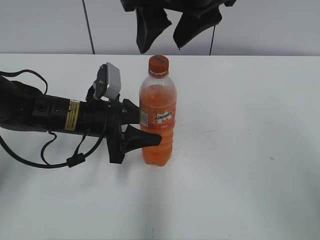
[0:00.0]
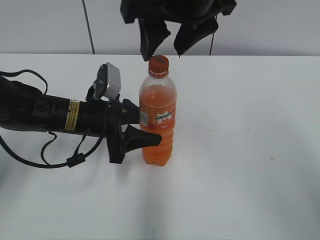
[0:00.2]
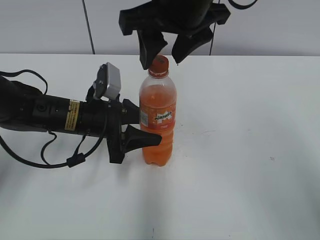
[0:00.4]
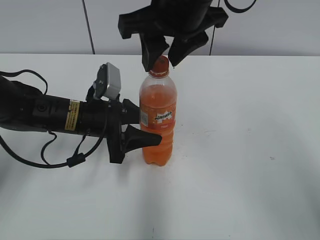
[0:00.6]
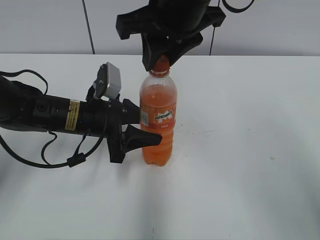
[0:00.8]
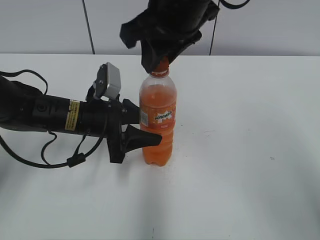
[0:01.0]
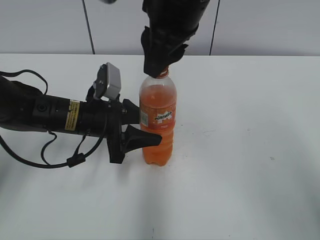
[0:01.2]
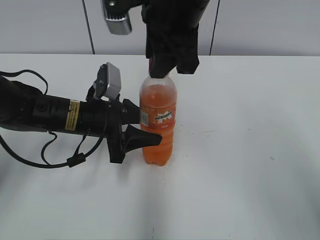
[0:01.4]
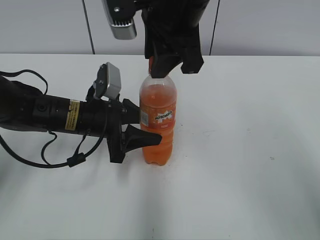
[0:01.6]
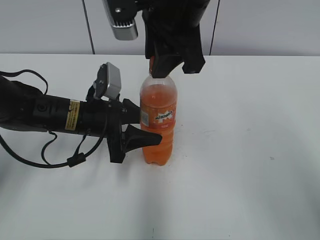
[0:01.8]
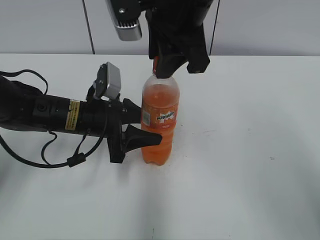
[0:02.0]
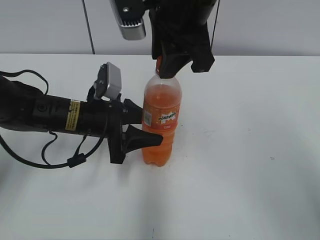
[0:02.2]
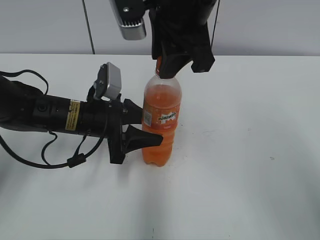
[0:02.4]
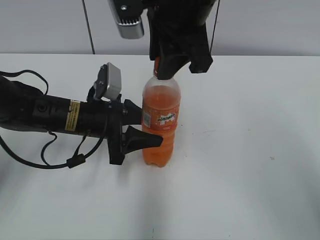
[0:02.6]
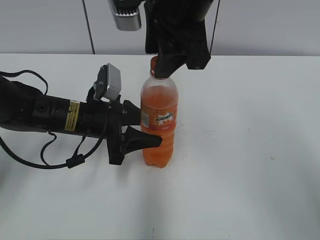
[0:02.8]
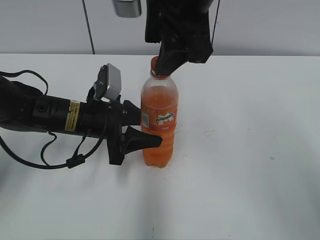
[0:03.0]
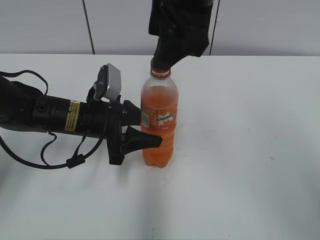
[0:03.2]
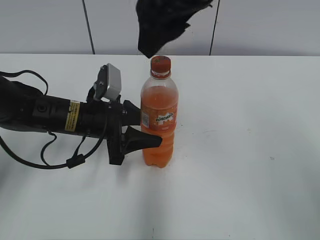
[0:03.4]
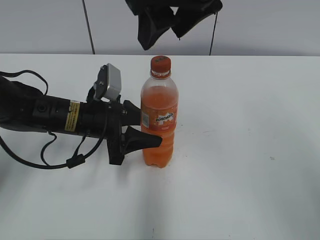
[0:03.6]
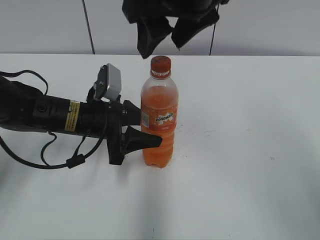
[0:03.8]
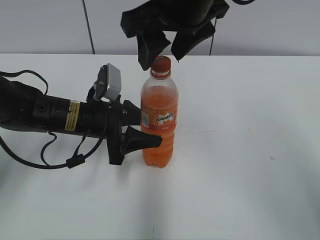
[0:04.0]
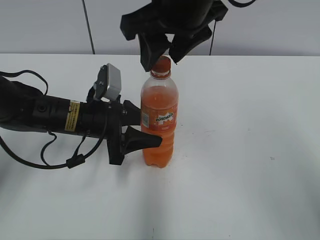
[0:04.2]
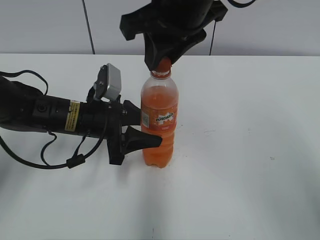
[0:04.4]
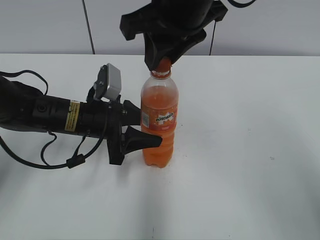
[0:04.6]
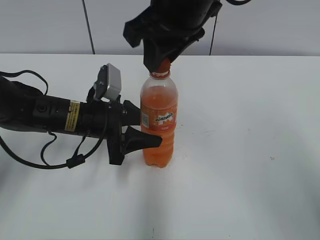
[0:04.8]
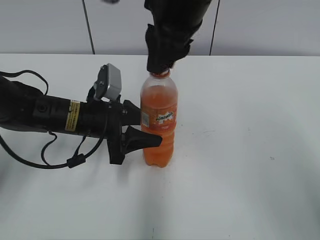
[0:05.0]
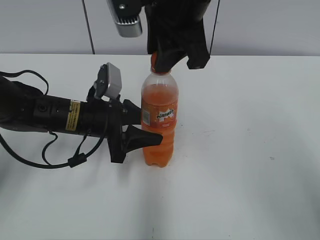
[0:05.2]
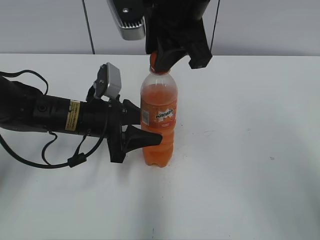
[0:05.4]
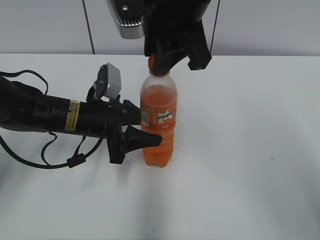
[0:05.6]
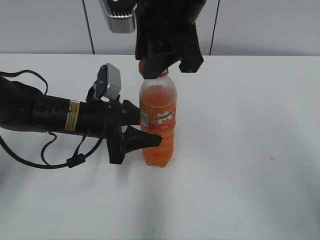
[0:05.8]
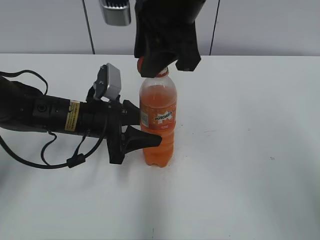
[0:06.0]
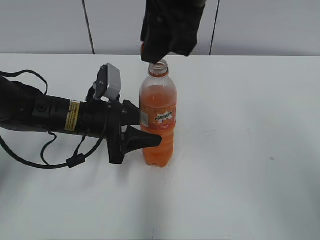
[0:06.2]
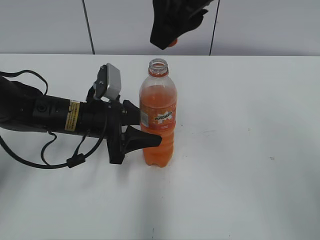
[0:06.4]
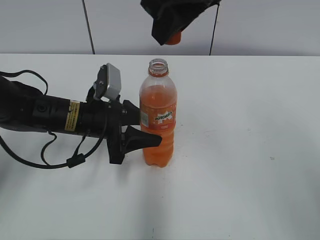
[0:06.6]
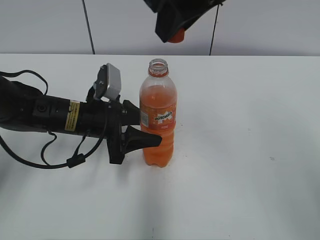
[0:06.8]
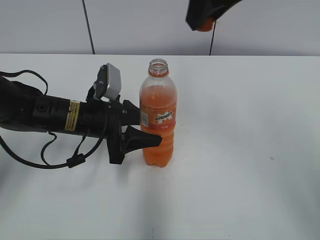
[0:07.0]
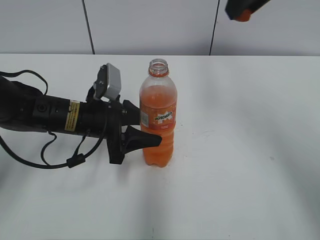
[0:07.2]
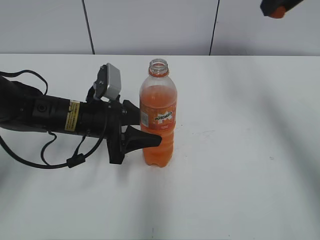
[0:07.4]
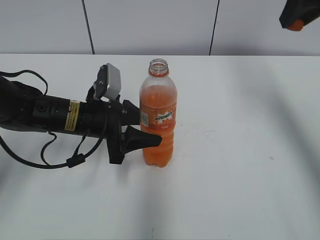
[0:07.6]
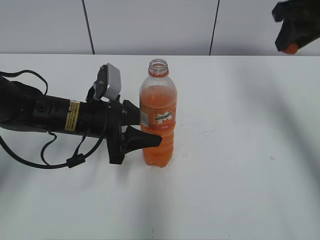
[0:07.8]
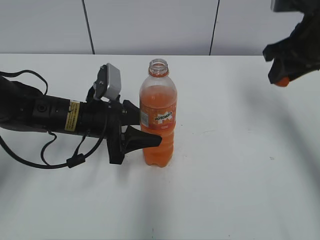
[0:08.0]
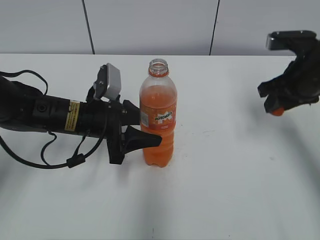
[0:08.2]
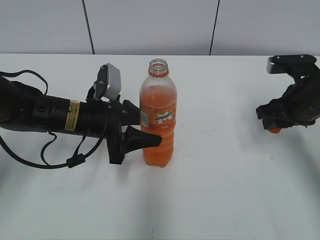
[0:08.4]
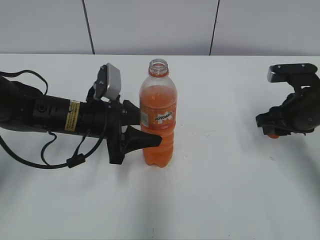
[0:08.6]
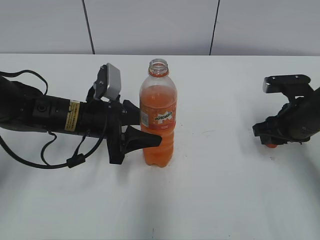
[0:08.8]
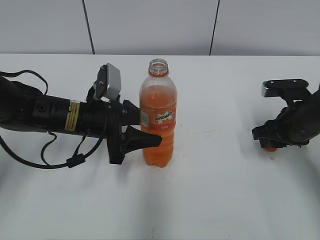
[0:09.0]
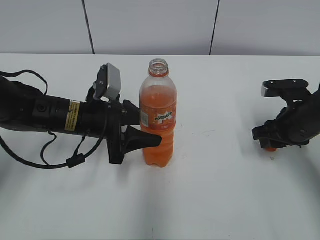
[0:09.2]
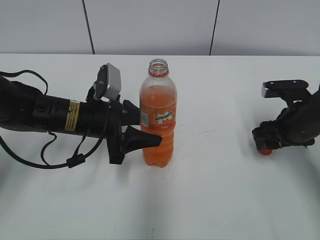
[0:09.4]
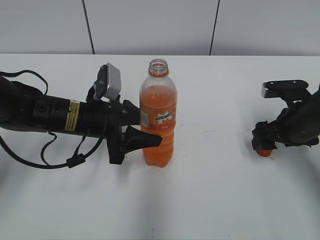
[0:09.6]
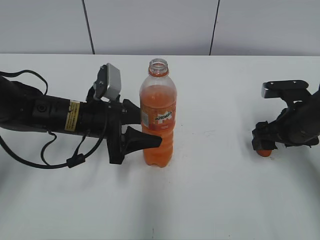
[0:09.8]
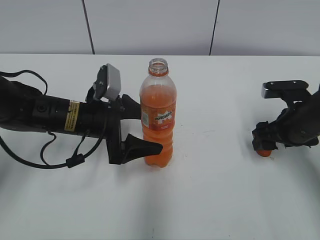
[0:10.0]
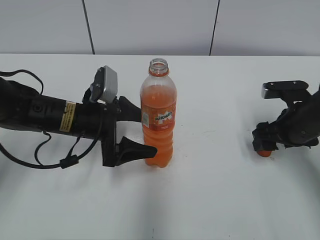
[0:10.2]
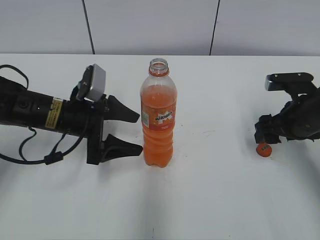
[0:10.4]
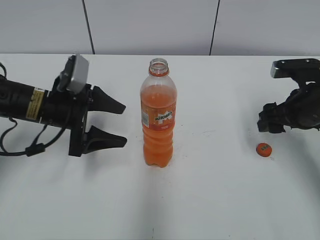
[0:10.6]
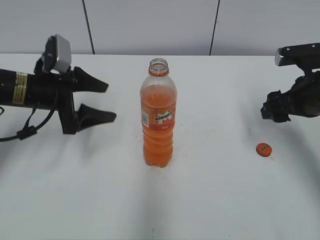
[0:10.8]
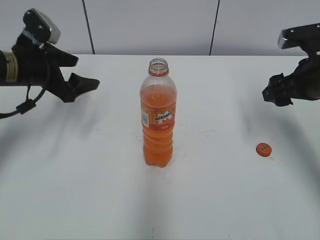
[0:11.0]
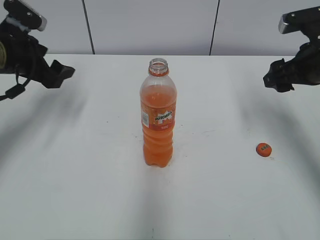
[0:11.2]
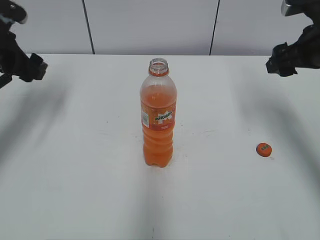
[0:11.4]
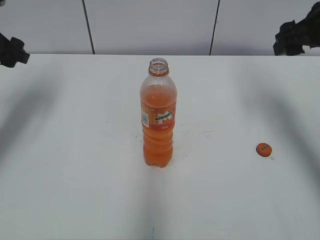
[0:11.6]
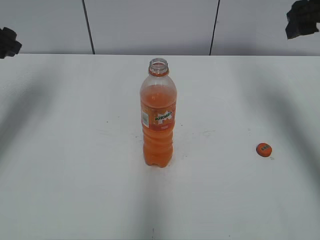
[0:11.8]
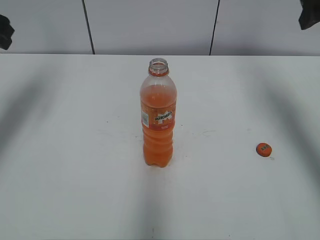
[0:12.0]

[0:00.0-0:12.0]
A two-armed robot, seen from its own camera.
Step, 0:06.2 to 0:09.6: Place the bottle cap on the right.
0:00.0 to 0:01.6: The right gripper closes its fingers.
0:01.6 to 0:03.0: The right gripper opens up.
0:03.0 to 0:04.4: The right gripper closes its fingers.
0:06.0 to 0:07.6: The right gripper travels to the right by roughly 20 cm.
0:07.6 to 0:09.0: The right gripper heads downward, covering some 25 cm.
0:09.0 to 0:10.4: The right gripper opens; the left gripper opens its fingers.
0:10.4 to 0:12.0: The right gripper is displaced upward by some 20 cm; the left gripper is displaced upward and to the left by roughly 25 cm.

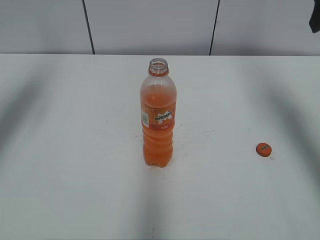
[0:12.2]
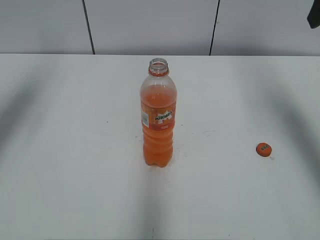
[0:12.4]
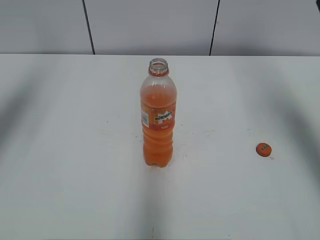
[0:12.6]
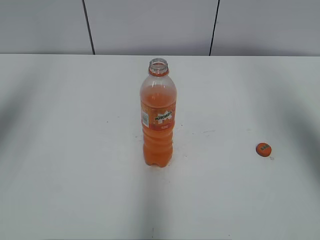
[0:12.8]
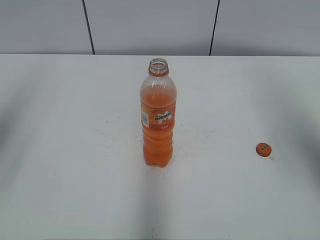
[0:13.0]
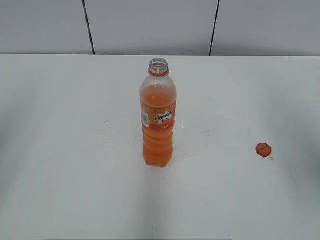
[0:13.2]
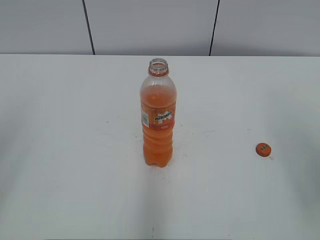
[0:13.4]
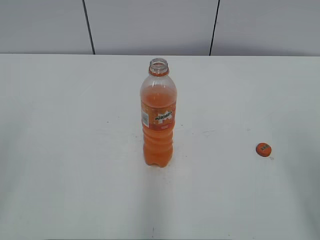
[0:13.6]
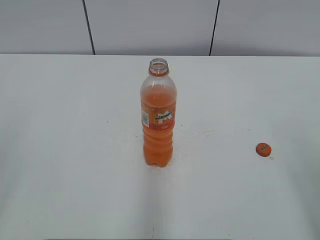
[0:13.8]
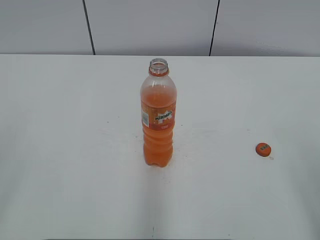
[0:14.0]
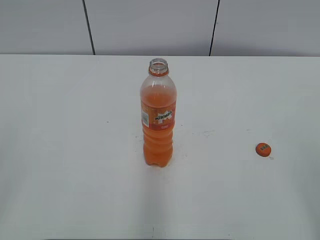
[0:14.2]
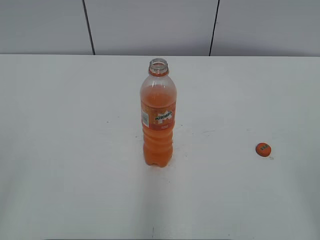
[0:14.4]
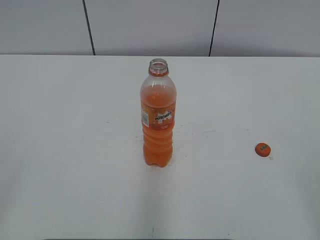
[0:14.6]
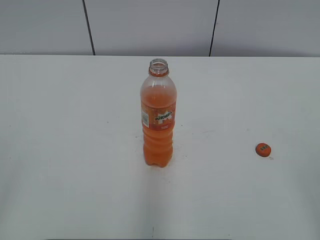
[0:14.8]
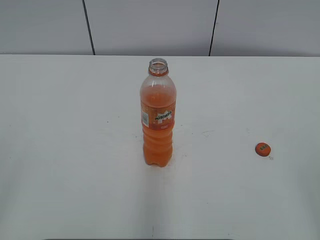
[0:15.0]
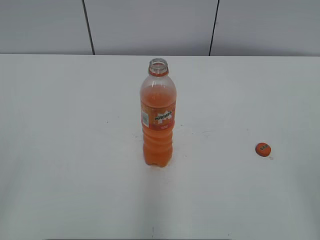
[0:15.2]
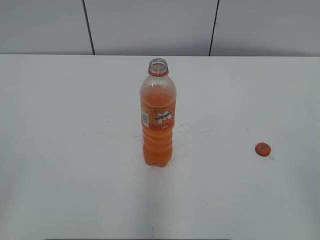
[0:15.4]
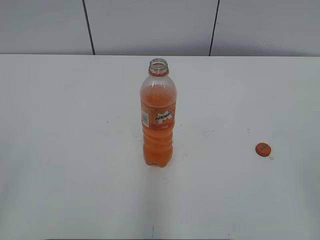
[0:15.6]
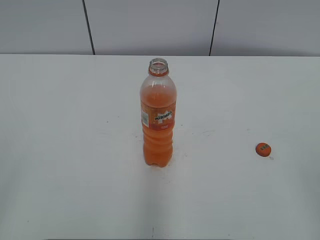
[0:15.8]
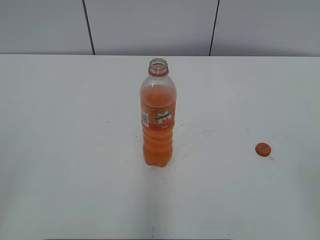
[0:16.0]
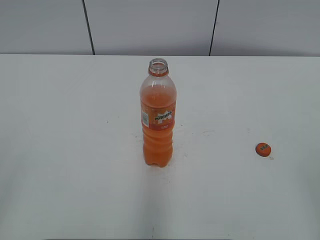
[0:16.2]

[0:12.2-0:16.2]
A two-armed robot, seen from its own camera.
0:12.2 to 0:13.6: The two grippers go approximately 25 cm backward.
0:13.6 to 0:14.8: The left gripper travels backward by roughly 10 cm.

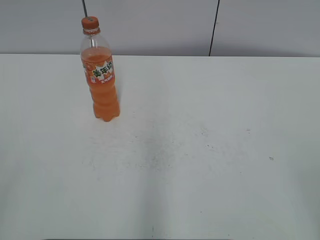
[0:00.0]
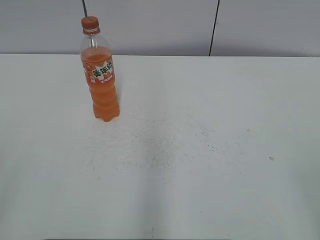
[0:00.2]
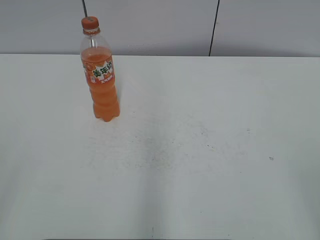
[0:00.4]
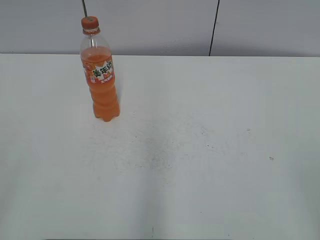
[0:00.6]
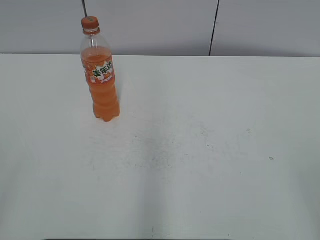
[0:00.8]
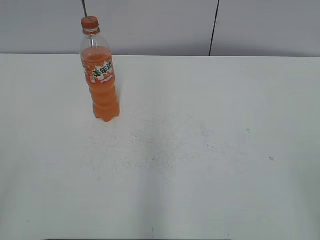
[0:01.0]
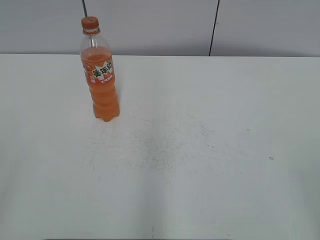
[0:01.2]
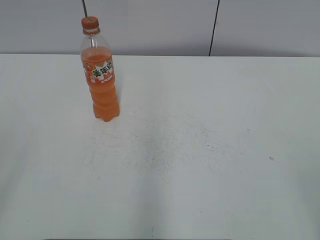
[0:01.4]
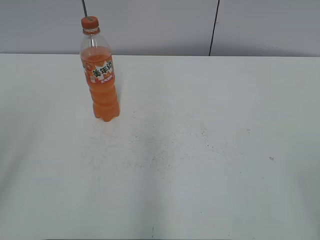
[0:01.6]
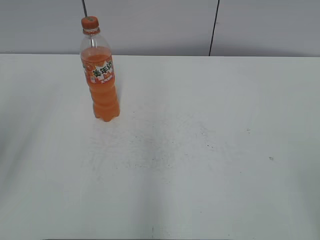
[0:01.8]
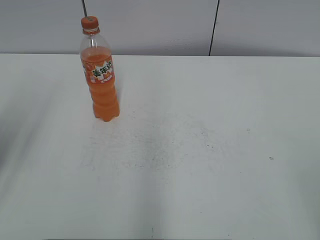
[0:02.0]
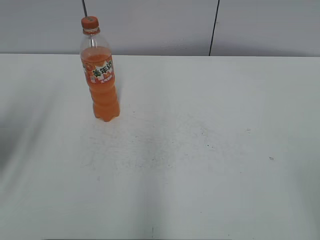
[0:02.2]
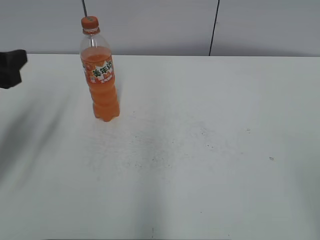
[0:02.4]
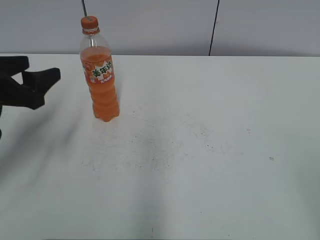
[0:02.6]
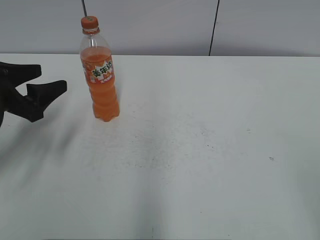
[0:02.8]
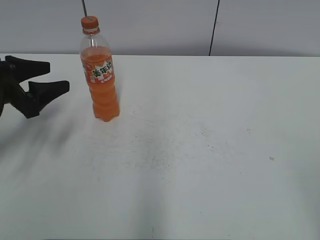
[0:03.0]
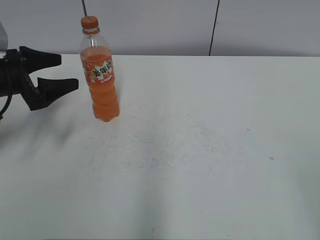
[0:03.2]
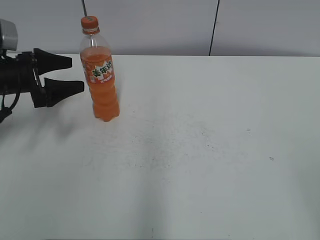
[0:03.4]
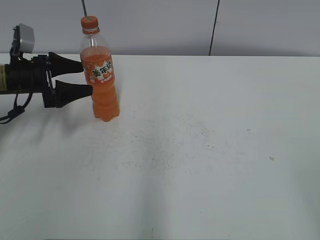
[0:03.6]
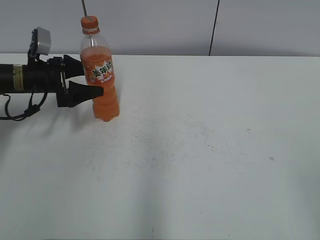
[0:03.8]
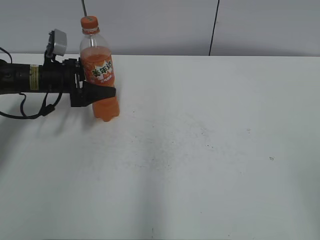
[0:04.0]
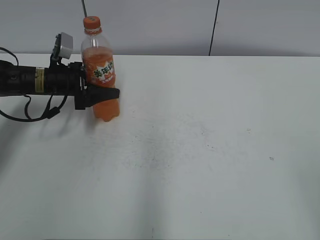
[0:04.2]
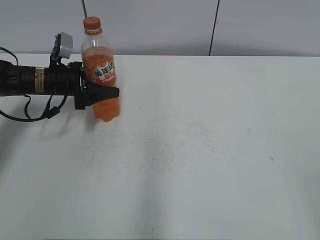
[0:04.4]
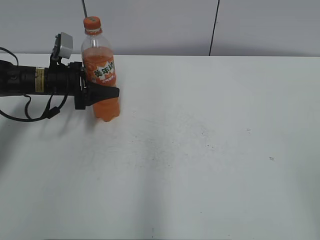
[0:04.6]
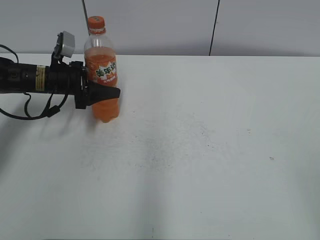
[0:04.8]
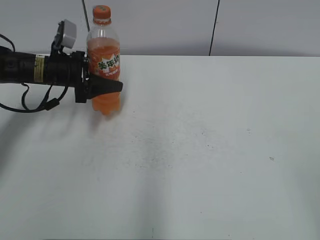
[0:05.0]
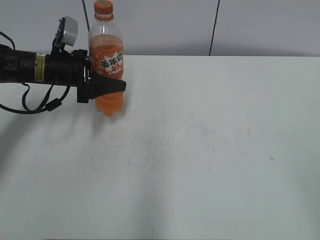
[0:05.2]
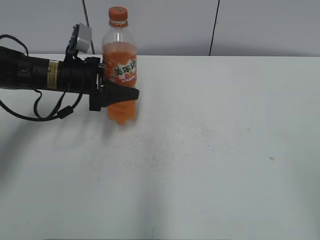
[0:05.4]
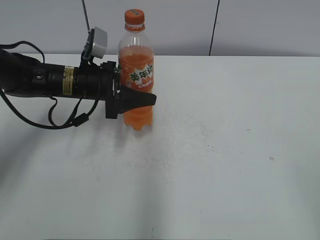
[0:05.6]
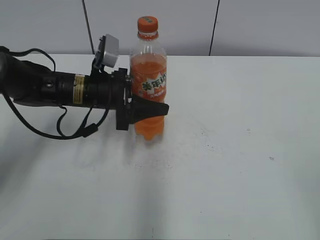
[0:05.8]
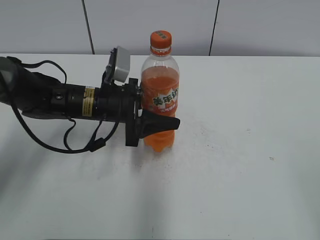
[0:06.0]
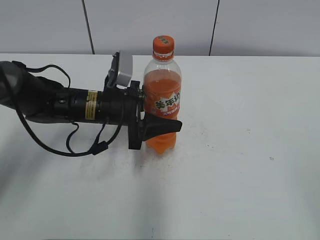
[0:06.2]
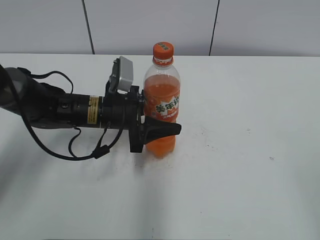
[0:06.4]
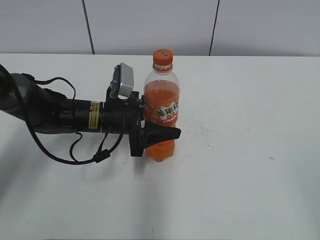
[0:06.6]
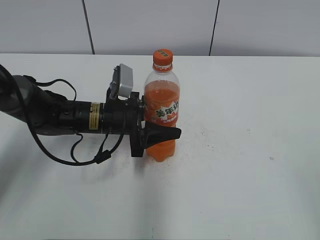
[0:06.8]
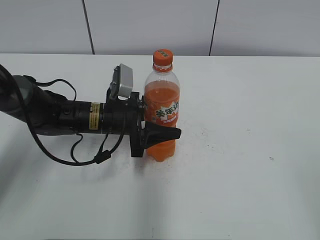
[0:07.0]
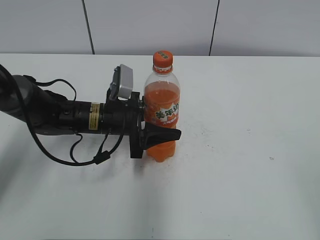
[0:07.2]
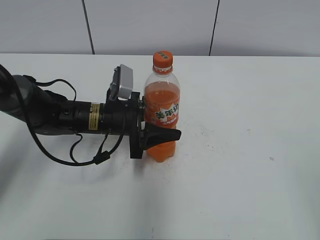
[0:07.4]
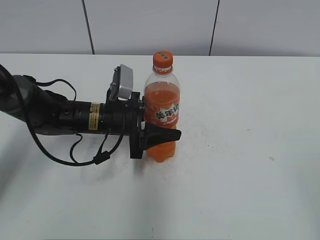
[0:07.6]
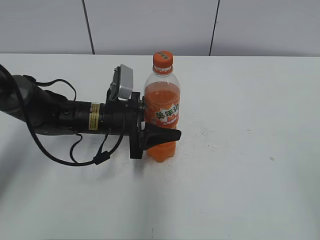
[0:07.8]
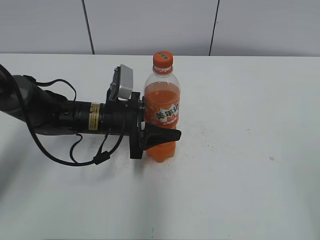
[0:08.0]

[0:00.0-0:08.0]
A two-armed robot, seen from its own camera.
Step, 0:00.0 to 0:04.2: Grab the Mirinda with the left hand.
Step, 0:04.4 to 0:07.0: Move the Mirinda from left to right.
0:01.6 to 0:03.2: The left gripper travels forward and downward by about 35 cm.
0:03.2 to 0:04.8: The left gripper shifts approximately 15 cm forward, to the right and downward, and closes its fingers.
0:04.8 to 0:06.4: The left gripper heads to the right and backward, covering some 15 cm.
0:06.4 to 0:08.0: There are only small adjustments of the grippers.
